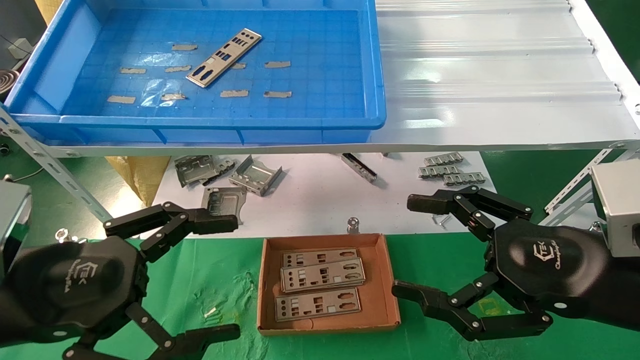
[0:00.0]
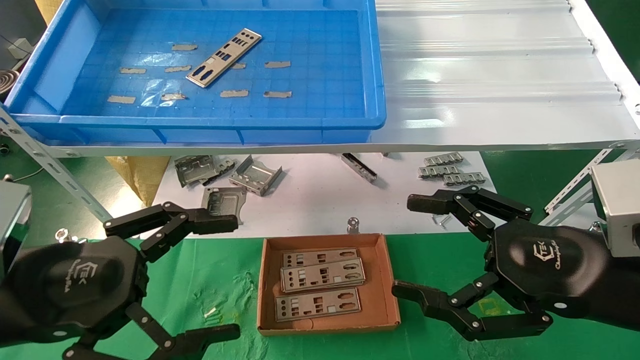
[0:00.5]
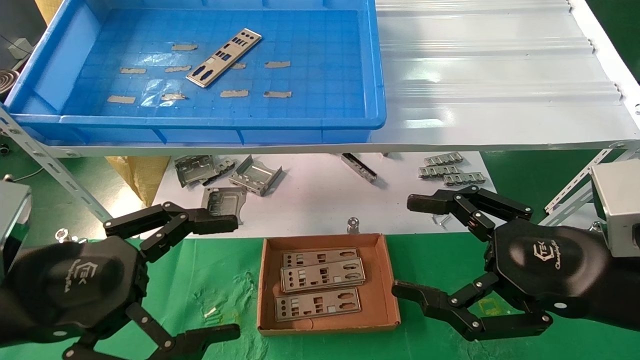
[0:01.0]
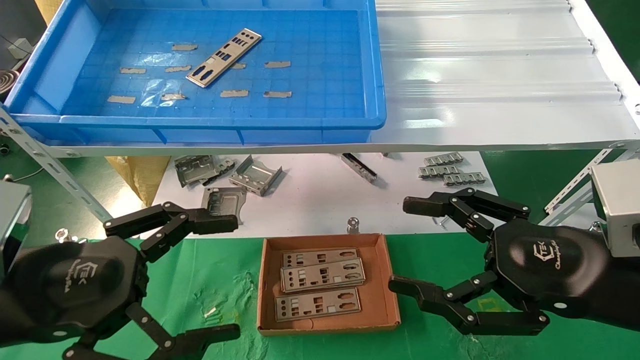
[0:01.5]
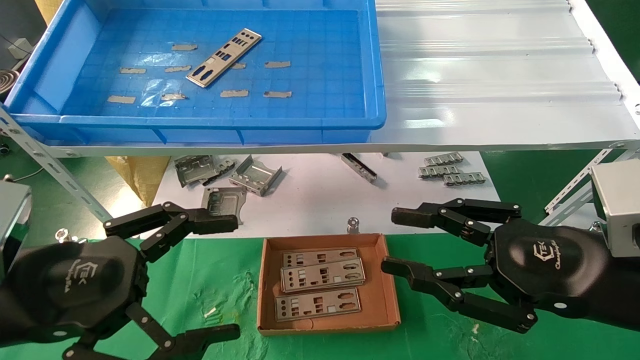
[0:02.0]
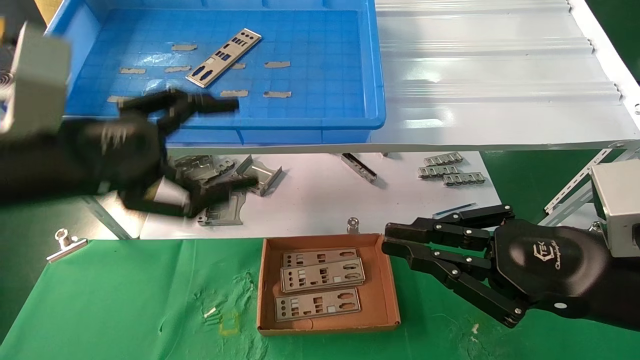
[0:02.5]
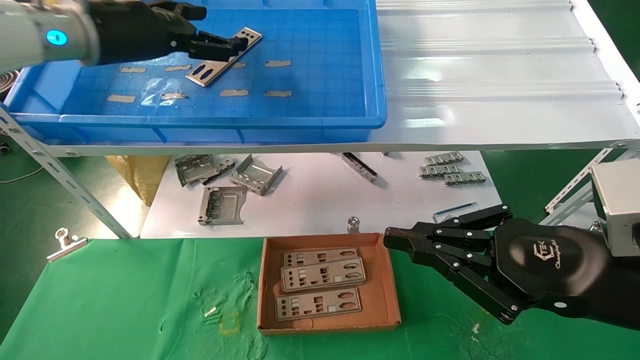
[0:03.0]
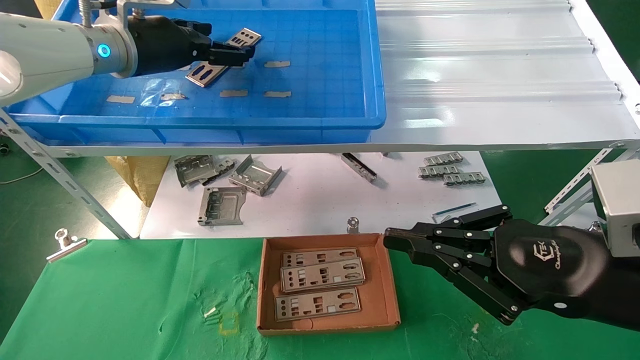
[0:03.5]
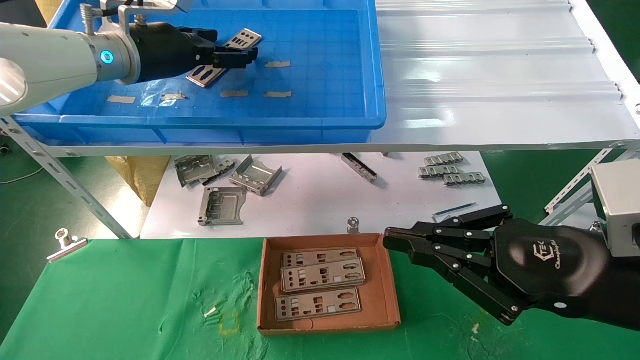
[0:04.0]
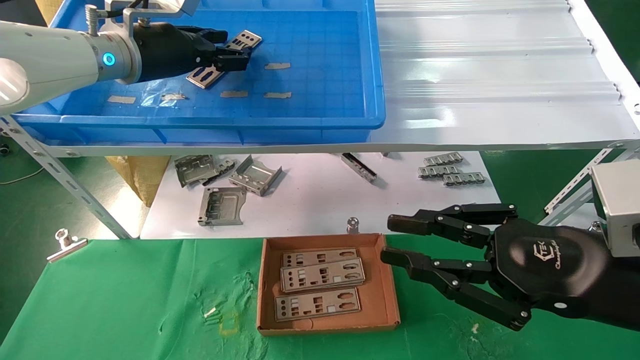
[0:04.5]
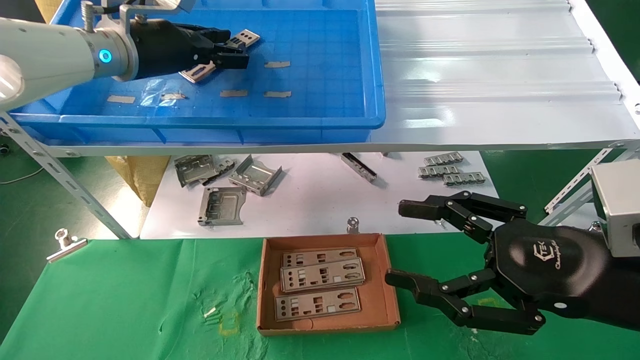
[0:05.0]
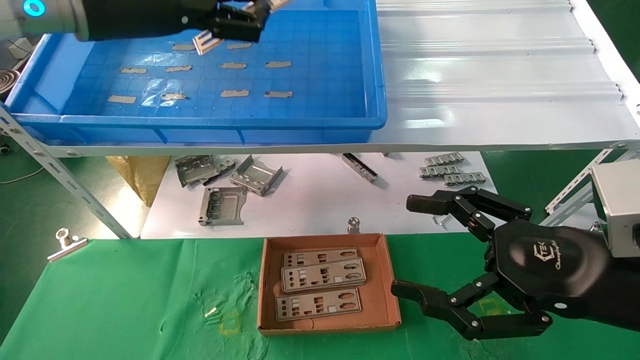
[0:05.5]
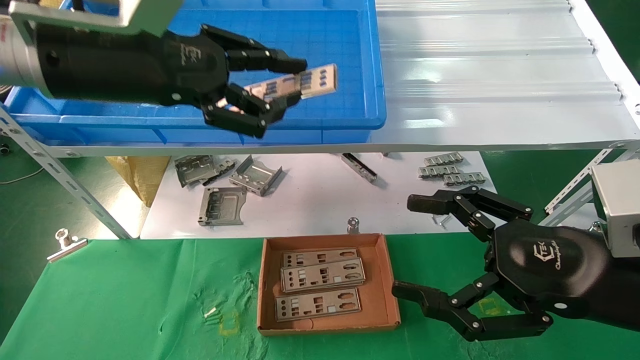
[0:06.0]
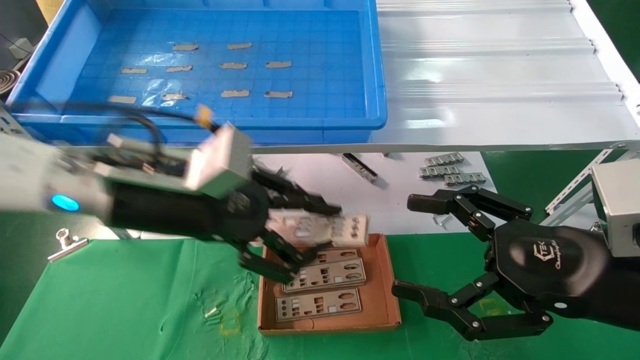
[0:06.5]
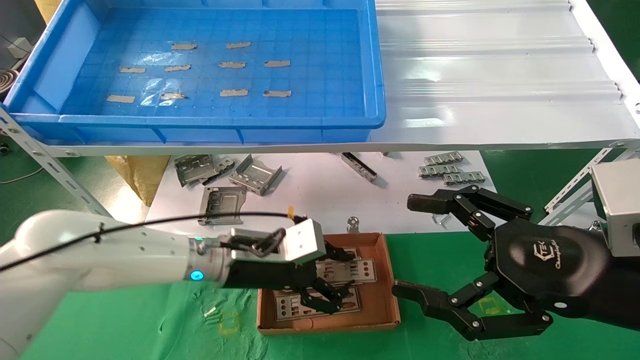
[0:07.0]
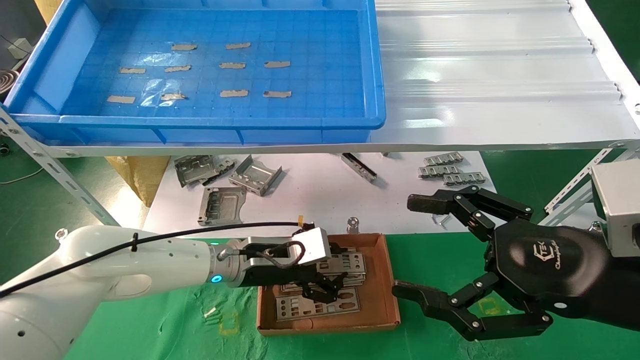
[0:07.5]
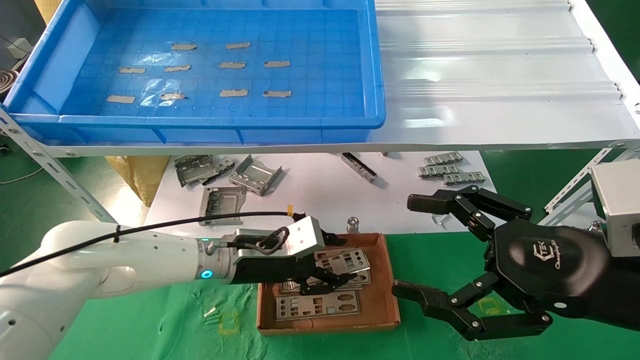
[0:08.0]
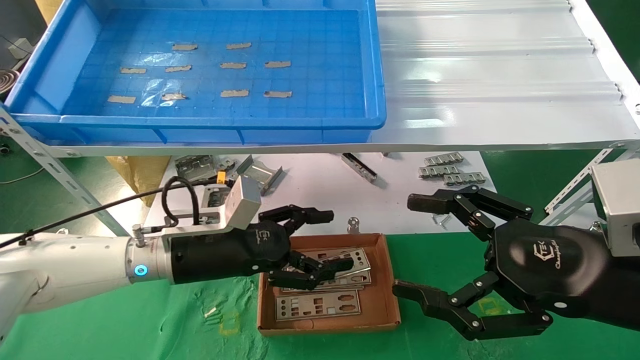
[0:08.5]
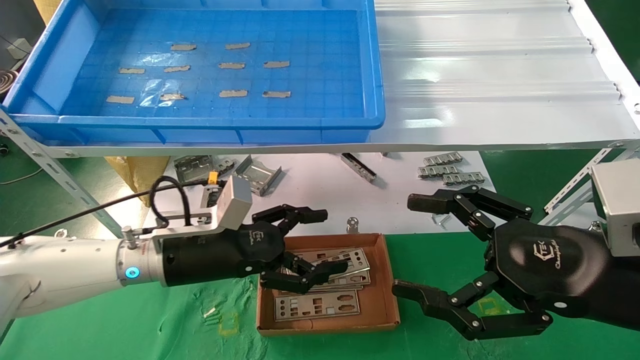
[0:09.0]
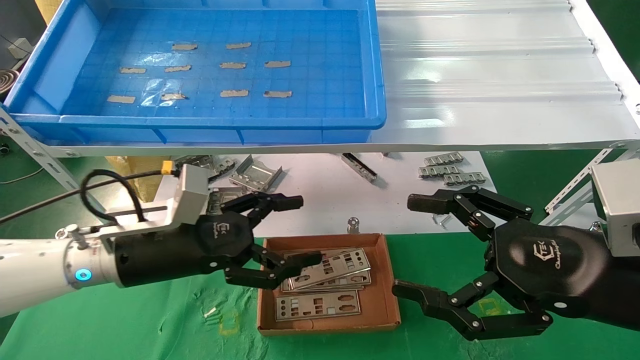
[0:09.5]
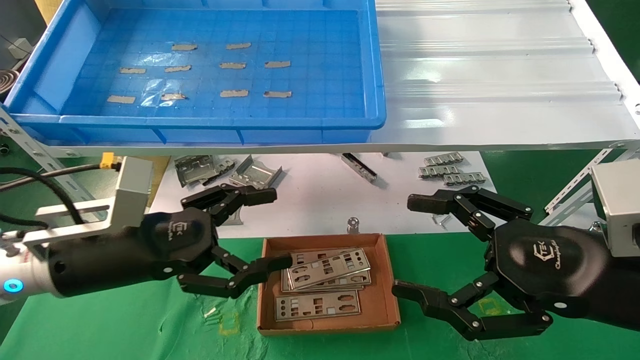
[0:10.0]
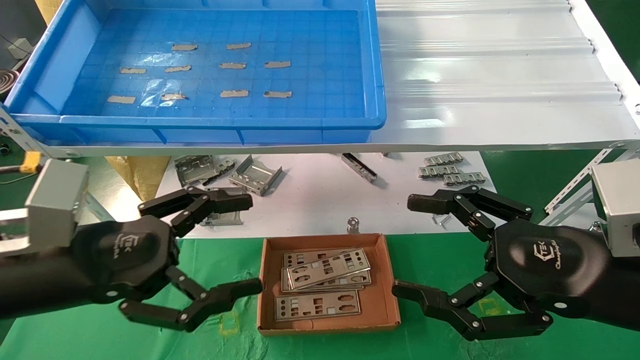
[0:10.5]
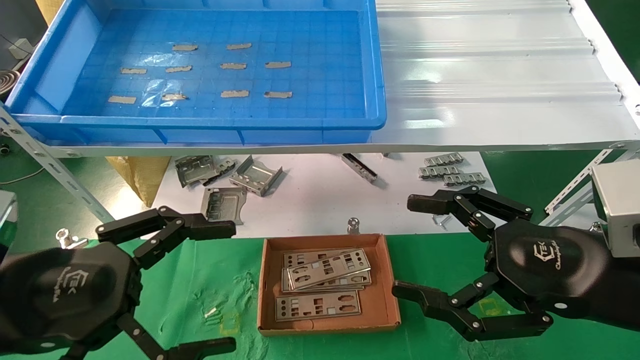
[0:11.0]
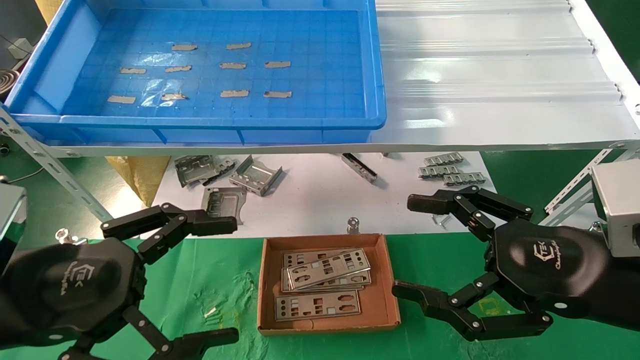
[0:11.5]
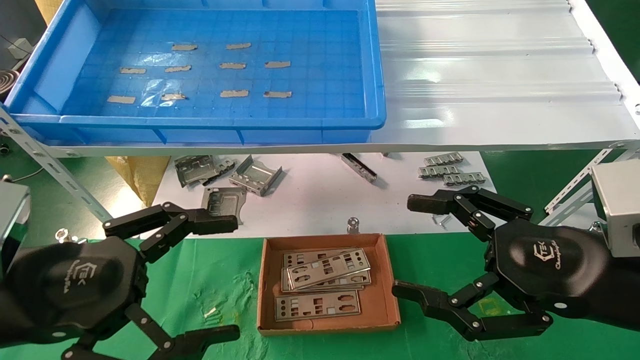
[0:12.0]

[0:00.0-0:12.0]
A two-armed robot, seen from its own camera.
Task of the whole recording: pick up the parts on the tray and put them in the cardboard box.
Step, 0:03.0 to 0:04.5: Pick up the IO bracket from the container box.
Step, 0:05.0 to 0:07.5: Place the IO bracket into the ingredient slot.
0:00.0 to 0:02.0: The right gripper closes up.
0:02.0 to 0:04.0: The left gripper shifts about 30 cm forward and upward. The right gripper closes its fingers.
0:04.0 to 0:06.0: The left gripper shifts some 15 cm backward, and closes; the right gripper opens its fingers.
0:06.0 to 0:08.0: The left gripper shifts some 25 cm downward.
0:08.0 to 0:10.0: The left gripper moves backward, to the left and upward, about 20 cm, and opens up.
0:10.0 to 0:12.0: The left gripper travels backward by some 10 cm.

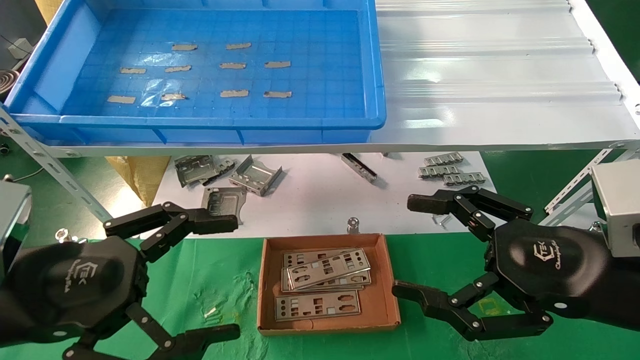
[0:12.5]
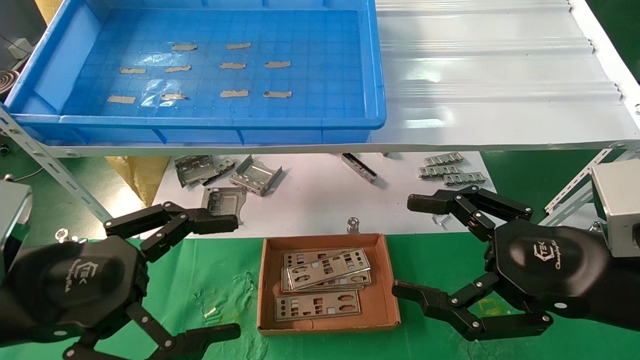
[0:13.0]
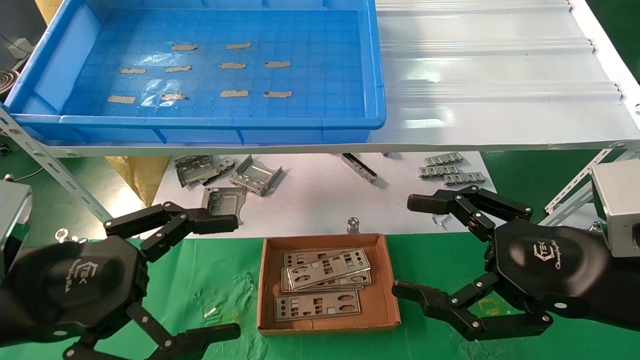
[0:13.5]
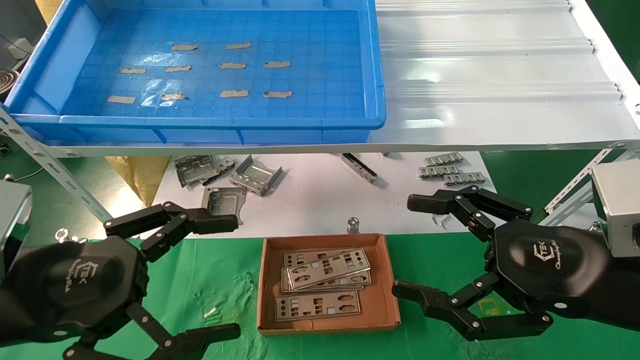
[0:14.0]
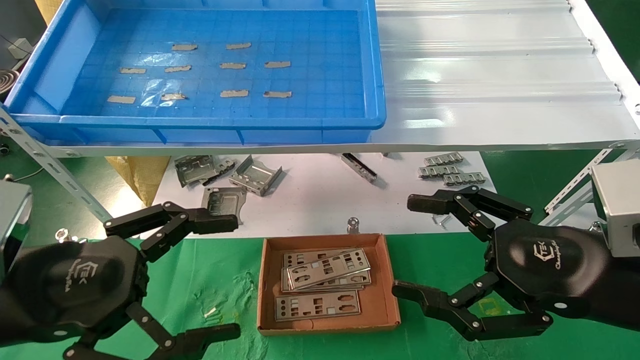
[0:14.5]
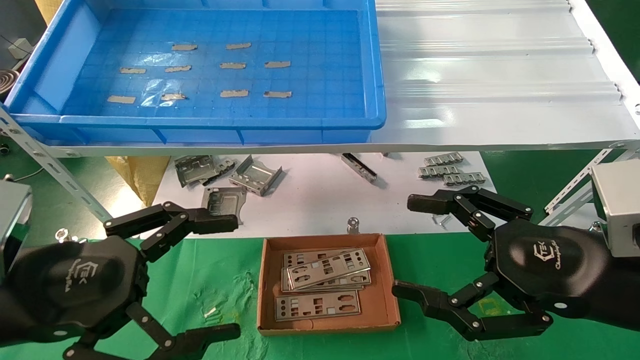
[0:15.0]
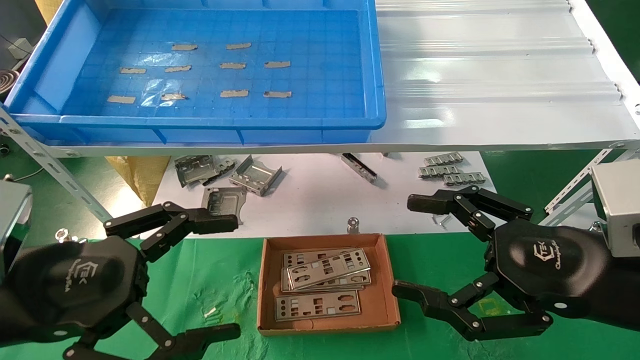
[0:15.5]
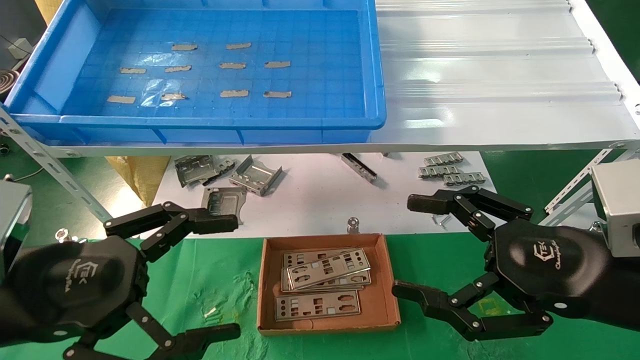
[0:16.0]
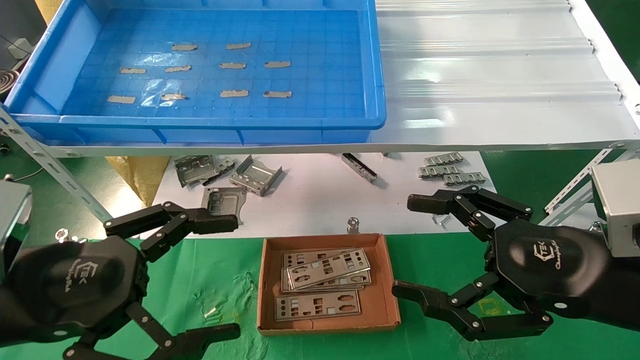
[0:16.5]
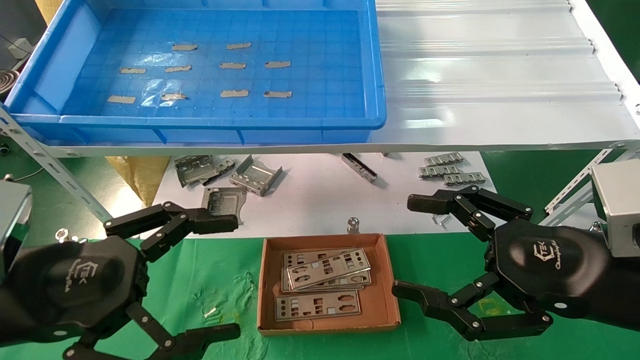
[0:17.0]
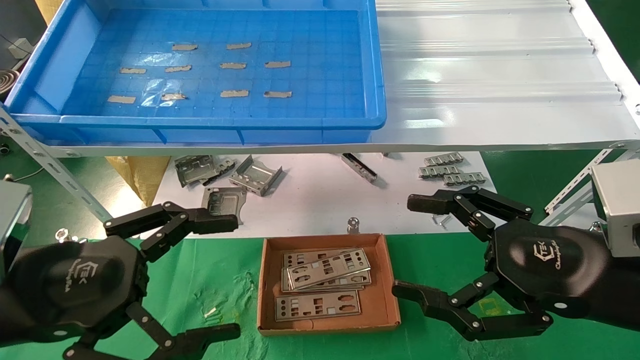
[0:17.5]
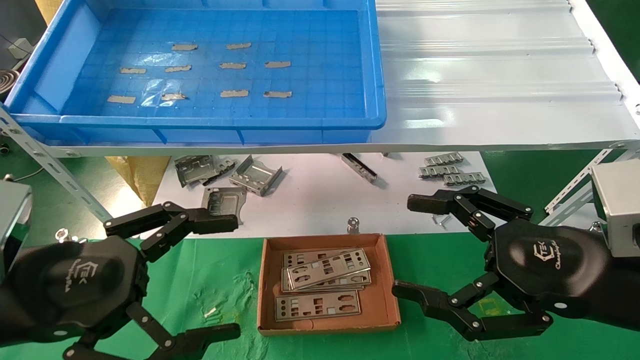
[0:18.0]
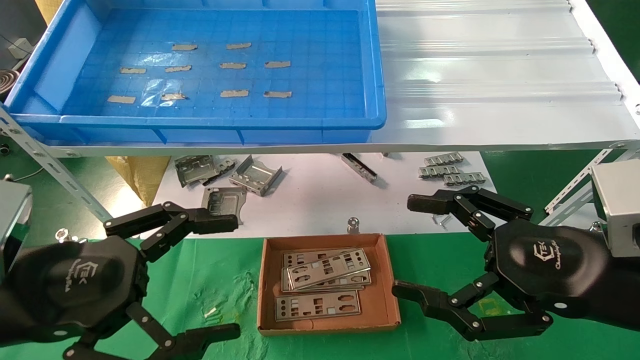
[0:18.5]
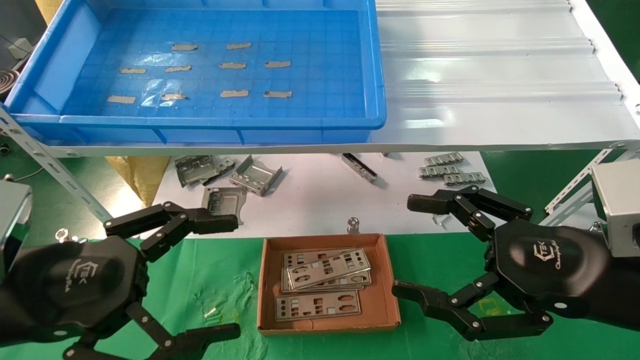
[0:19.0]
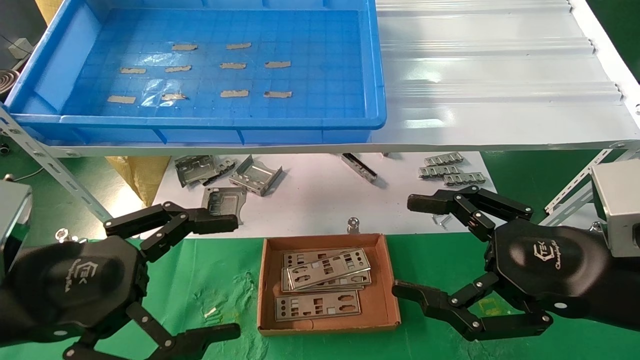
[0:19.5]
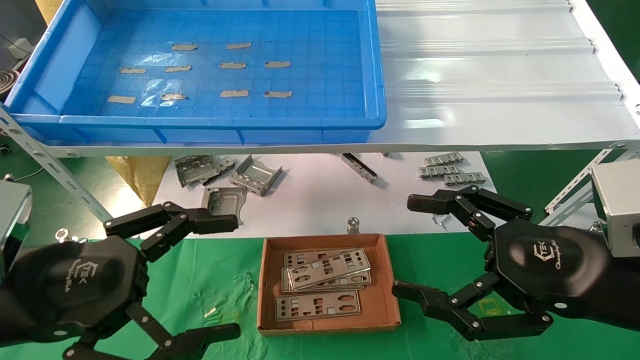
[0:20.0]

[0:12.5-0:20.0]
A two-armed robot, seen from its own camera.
Task of the whole recording: pick up the parts on the tray and put them in the cardboard box.
0:12.5 to 0:20.0: Both grippers stay about where they are.
